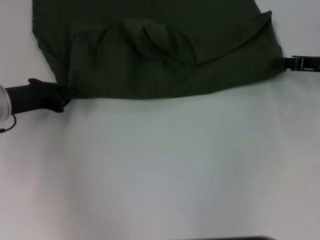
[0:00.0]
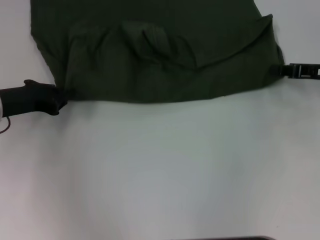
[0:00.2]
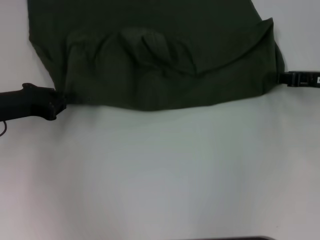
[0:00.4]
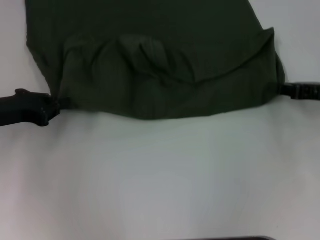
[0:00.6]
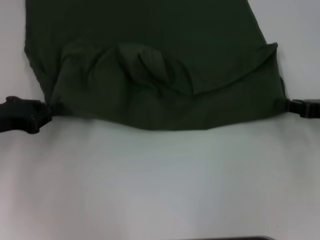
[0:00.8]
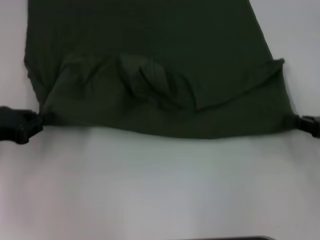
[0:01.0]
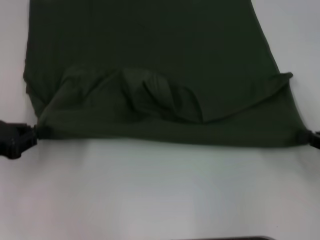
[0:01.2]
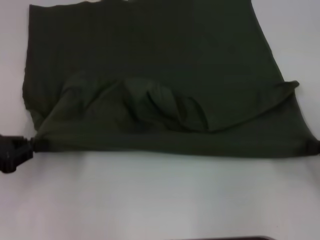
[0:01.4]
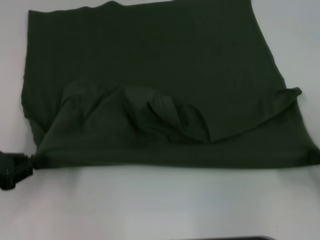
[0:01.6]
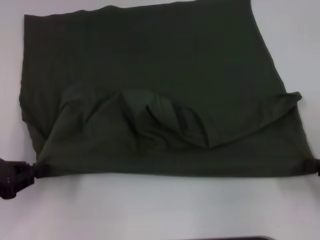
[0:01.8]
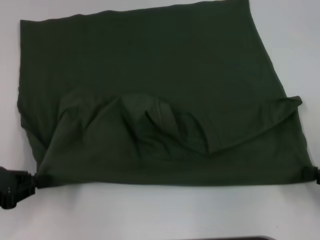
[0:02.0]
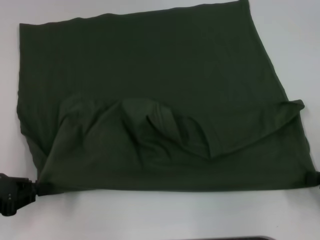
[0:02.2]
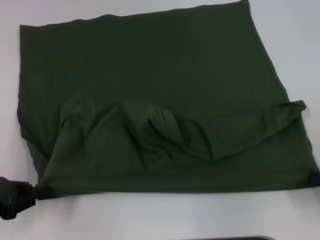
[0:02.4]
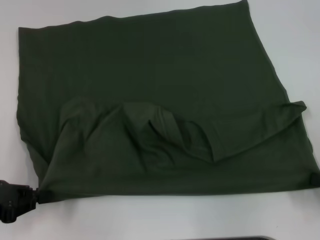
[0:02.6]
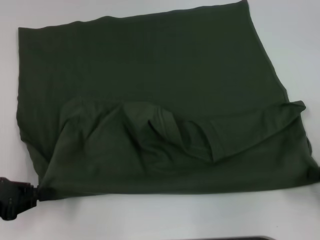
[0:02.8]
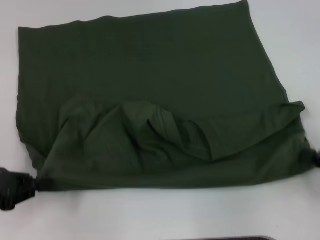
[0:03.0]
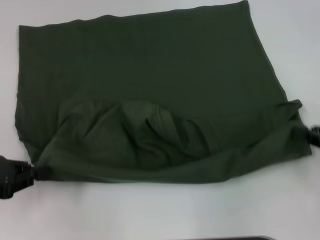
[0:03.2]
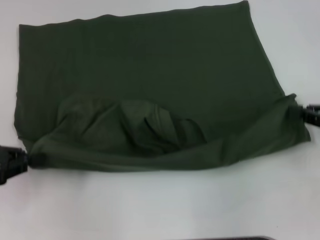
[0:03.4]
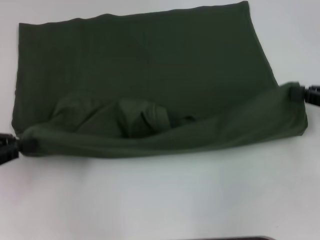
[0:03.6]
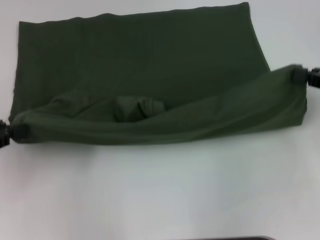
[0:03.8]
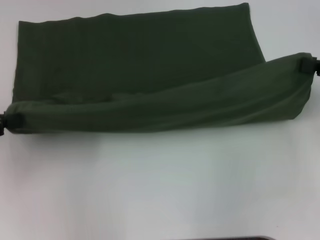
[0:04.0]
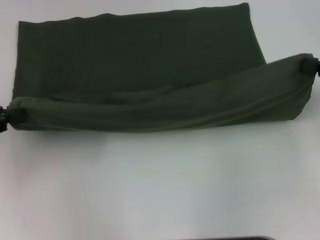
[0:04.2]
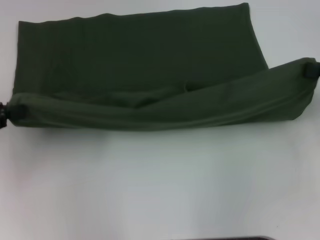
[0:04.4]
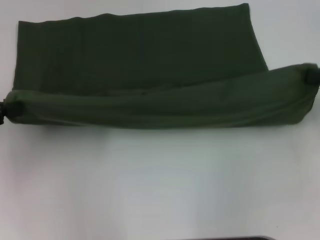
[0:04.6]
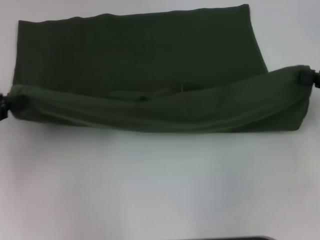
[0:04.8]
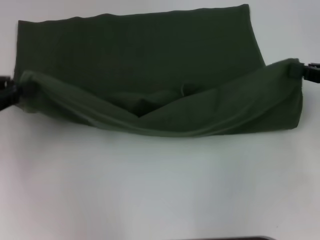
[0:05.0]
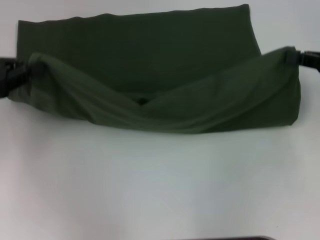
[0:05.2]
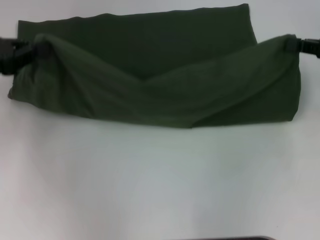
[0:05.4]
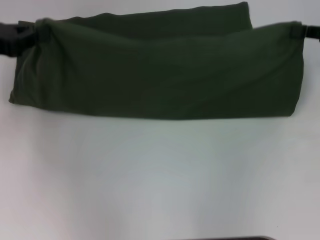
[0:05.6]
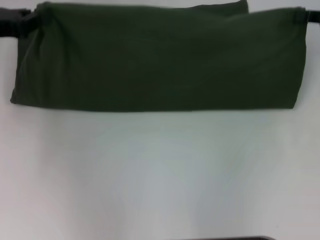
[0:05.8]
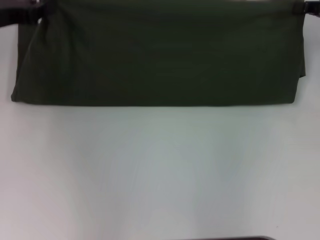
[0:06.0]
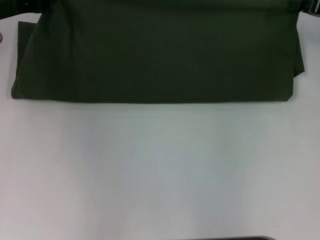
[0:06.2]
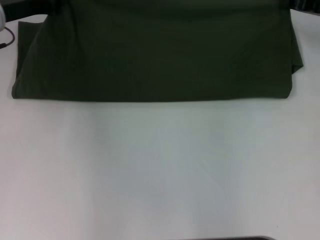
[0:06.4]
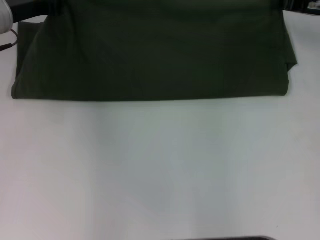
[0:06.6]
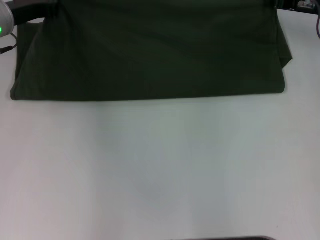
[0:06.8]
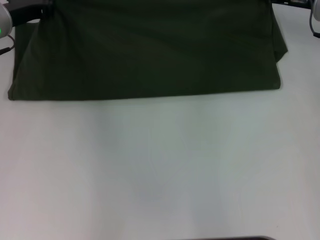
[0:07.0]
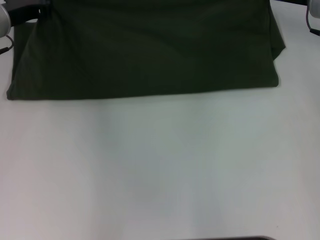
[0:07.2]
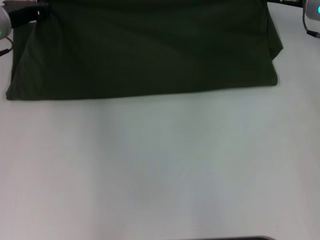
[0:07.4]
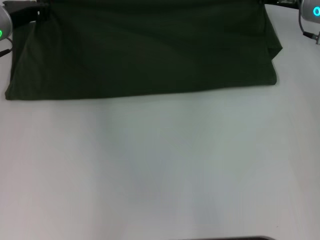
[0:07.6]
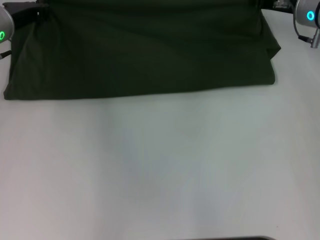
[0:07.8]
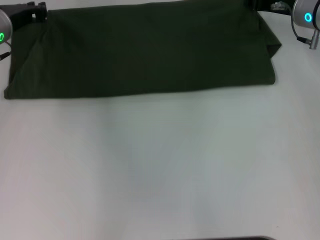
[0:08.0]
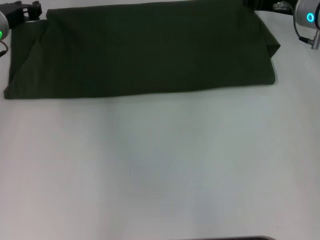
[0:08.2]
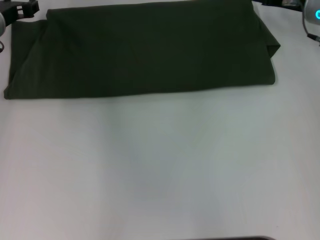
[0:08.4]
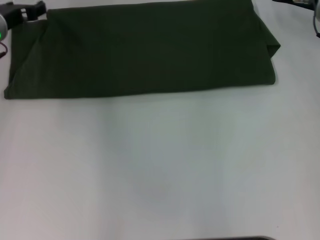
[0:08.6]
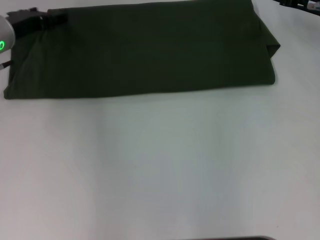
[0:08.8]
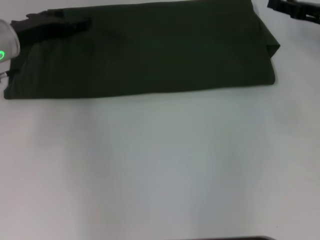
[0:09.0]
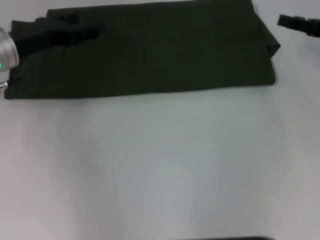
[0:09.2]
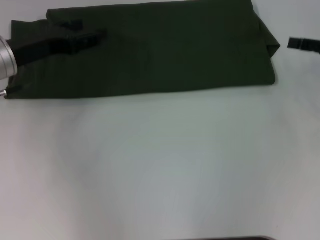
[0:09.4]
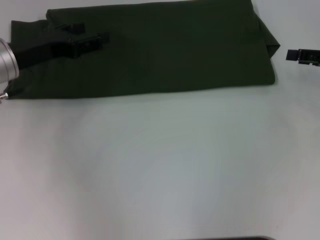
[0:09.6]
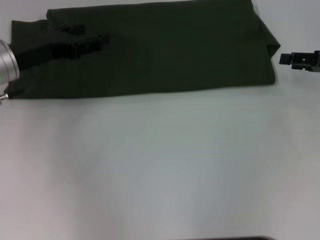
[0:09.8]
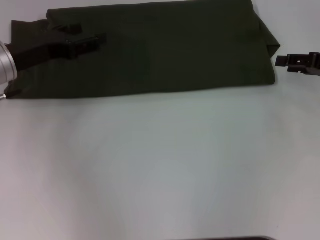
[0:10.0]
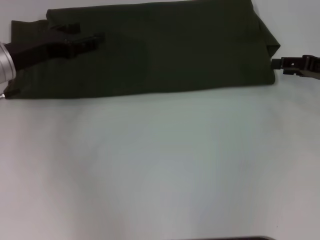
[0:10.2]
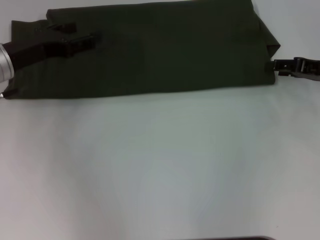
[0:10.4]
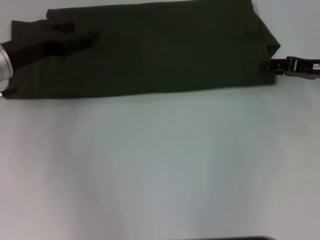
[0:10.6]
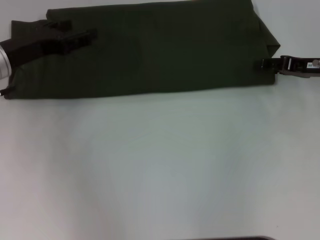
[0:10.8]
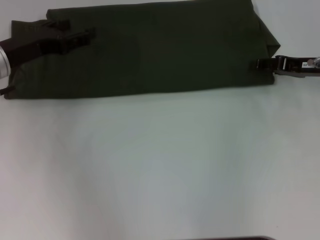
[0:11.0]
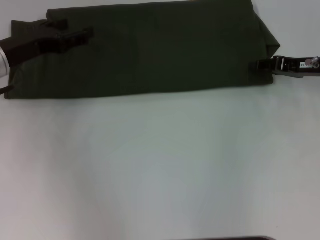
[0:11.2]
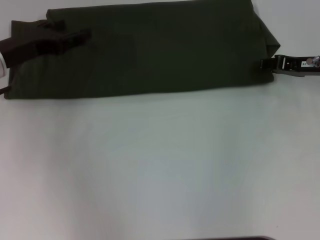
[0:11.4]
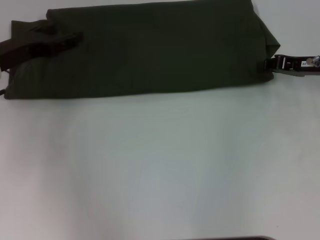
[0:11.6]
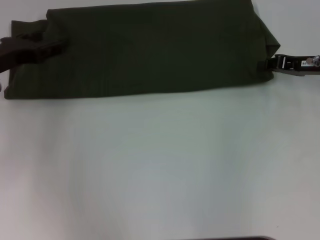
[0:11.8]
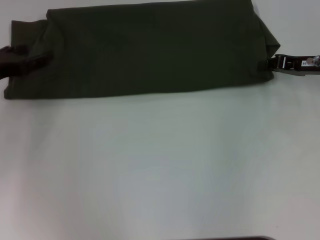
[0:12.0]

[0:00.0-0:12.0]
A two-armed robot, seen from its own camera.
Step, 0:00.0 to 0:02.4: Pull the clothes with your left hand.
Step, 0:00.0 to 0:02.4: Pull the clothes with your right hand.
Step, 0:02.6 to 0:08.4: Fold the clothes with your left hand.
Step, 0:02.6 to 0:08.4: Fold the clothes with your right hand.
0:00.0 to 0:01.6: The left gripper goes approximately 15 cm backward and to the left, while the right gripper is displaced backward by some 20 cm.
0:03.0 to 0:04.4: The left gripper shifts approximately 5 cm upward, while the right gripper shifts roughly 10 cm upward and forward.
0:04.4 to 0:06.0: The right gripper goes roughly 10 cm forward; the left gripper is displaced forward and to the right by roughly 15 cm.
0:06.0 to 0:07.6: The left gripper ends up some 5 cm from where it was; the right gripper is displaced to the left and forward by some 10 cm.
0:07.6 to 0:09.0: The right gripper is displaced backward and to the right by some 10 cm, and opens its fingers; the left gripper opens.
0:10.4 to 0:12.0: The left gripper moves to the left, roughly 5 cm. Meanwhile the right gripper closes.

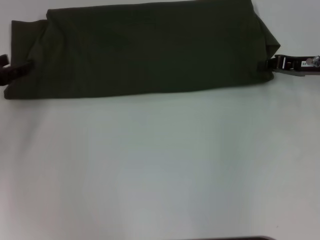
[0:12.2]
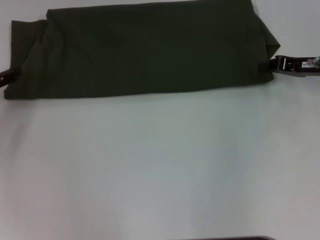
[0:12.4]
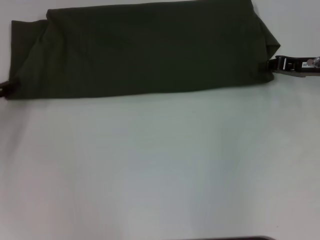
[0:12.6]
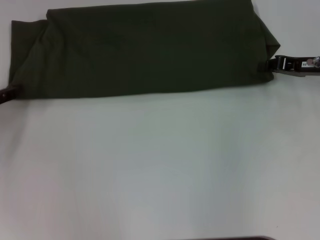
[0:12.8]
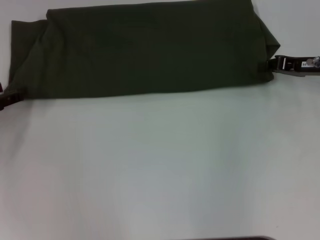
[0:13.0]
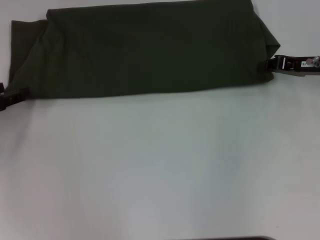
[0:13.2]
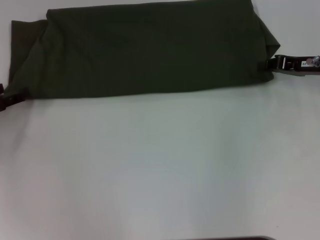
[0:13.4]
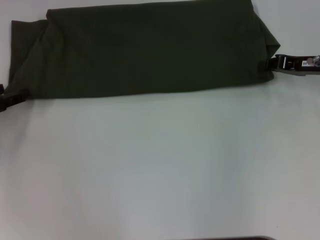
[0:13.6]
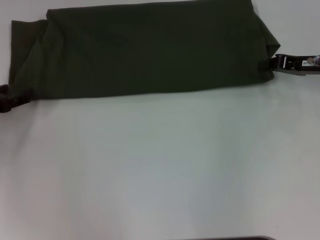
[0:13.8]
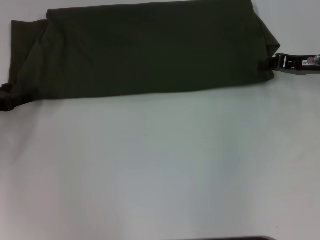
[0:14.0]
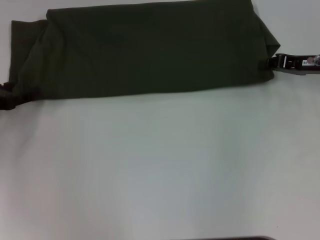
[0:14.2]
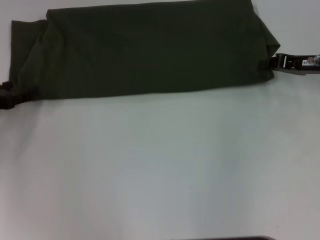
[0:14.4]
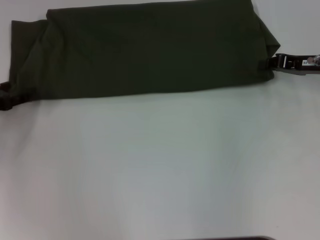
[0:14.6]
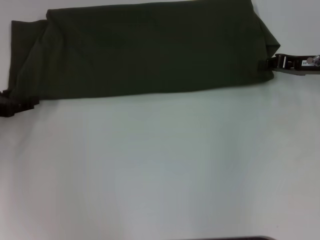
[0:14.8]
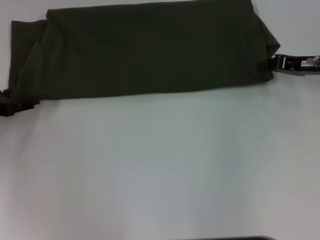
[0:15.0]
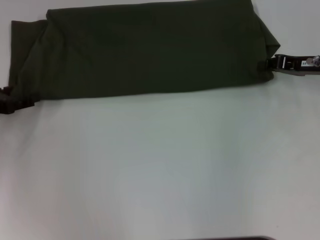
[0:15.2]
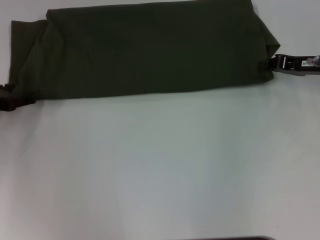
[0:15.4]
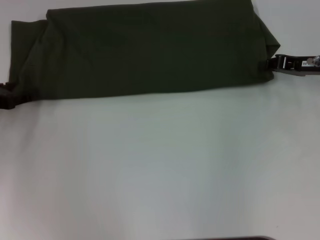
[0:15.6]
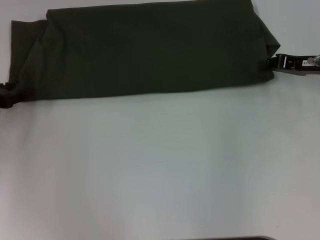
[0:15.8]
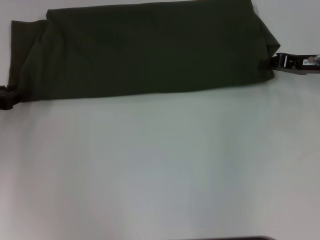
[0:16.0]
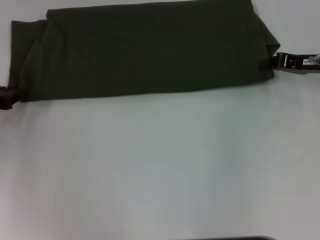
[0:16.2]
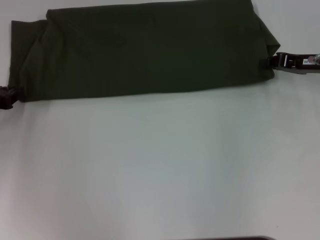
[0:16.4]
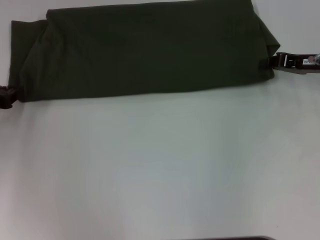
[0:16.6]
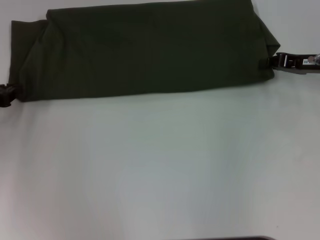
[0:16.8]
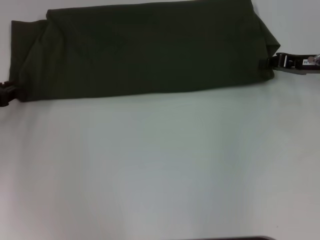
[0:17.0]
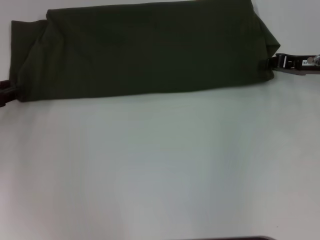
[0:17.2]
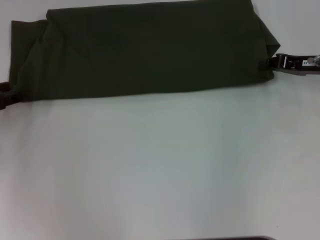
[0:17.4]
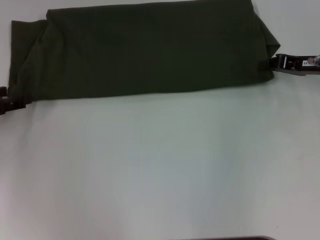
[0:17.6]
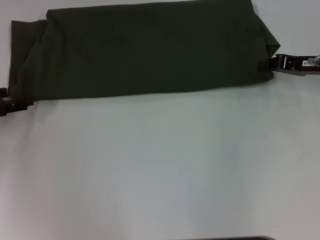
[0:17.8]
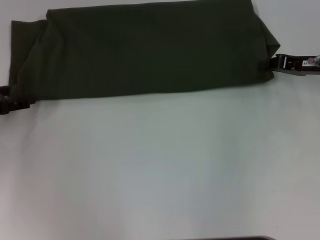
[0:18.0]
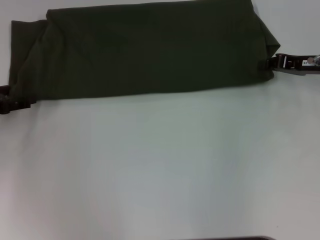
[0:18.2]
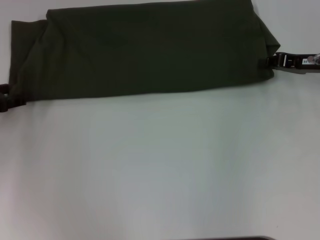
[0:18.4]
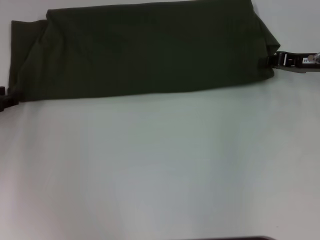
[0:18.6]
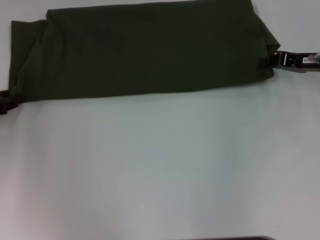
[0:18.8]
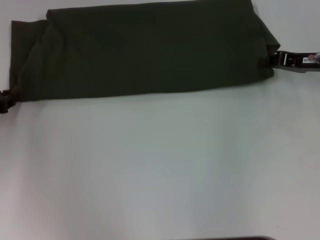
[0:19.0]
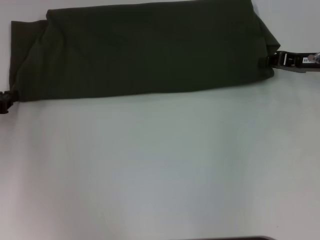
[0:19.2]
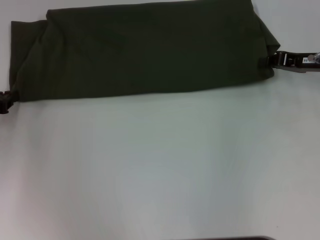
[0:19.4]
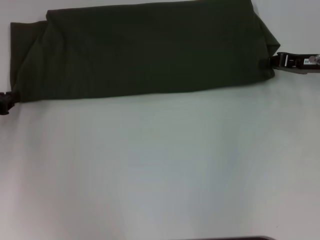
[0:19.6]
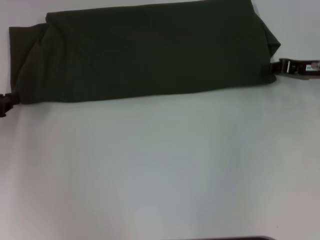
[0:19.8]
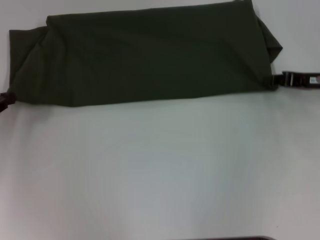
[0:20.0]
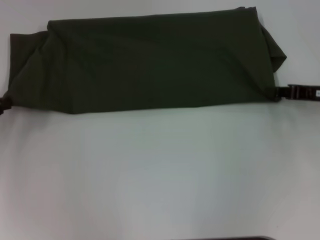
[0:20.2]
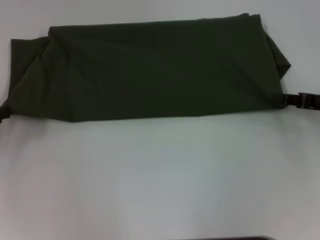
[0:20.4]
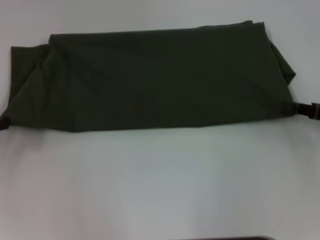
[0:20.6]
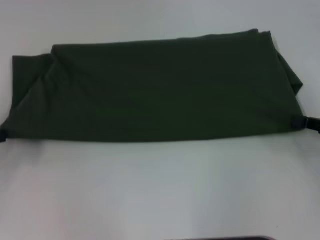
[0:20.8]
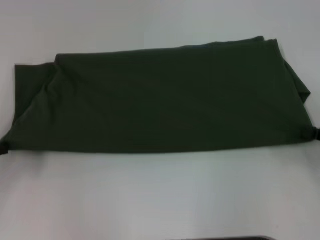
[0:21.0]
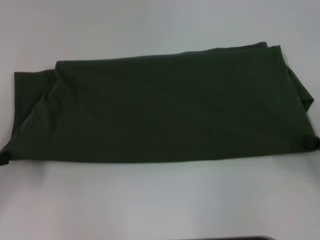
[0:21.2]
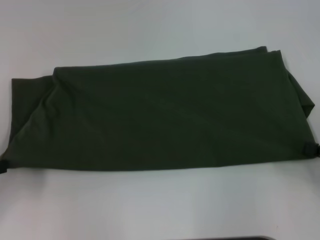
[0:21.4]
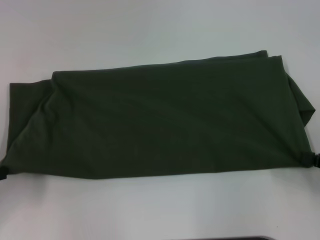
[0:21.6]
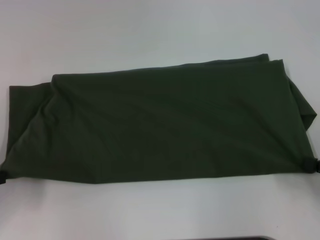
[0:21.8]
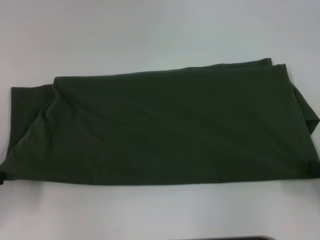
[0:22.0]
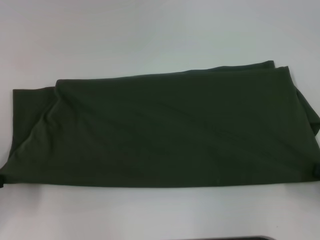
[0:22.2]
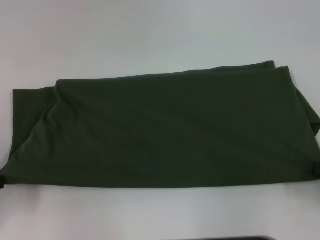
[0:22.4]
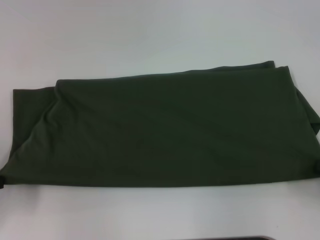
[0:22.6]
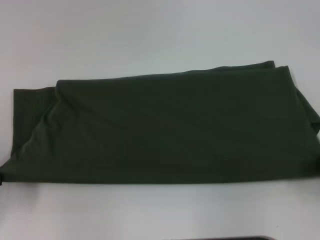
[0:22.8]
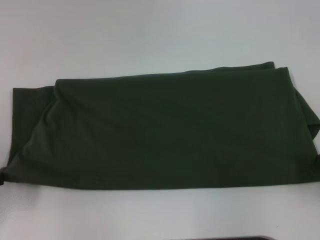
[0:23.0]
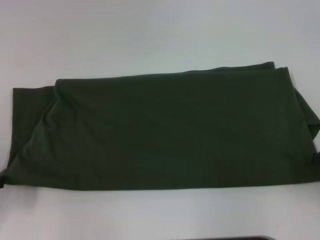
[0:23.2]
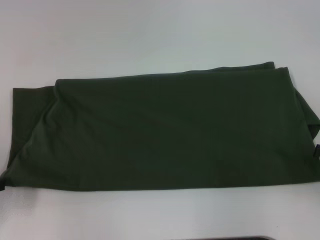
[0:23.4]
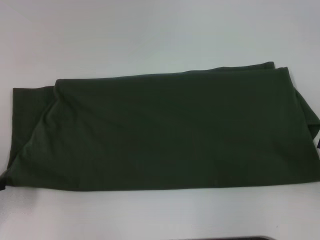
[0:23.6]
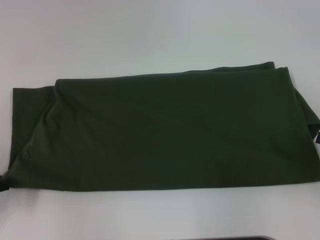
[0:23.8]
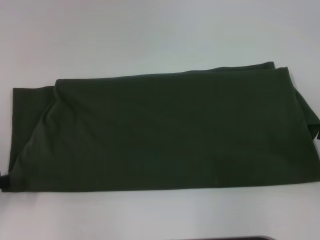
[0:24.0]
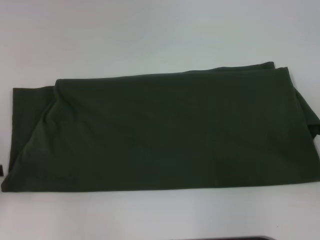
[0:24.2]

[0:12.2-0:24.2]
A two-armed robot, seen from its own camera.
0:12.2 to 0:13.8: The grippers stay close to where they were, moving slightly.
0:18.2 to 0:19.8: The left gripper closes.
0:19.8 to 0:21.2: The left gripper travels backward by about 10 cm; the right gripper shifts roughly 15 cm backward and to the right.
0:22.6 to 0:24.2: The right gripper opens.
